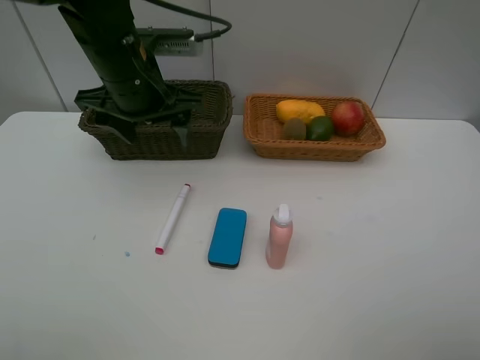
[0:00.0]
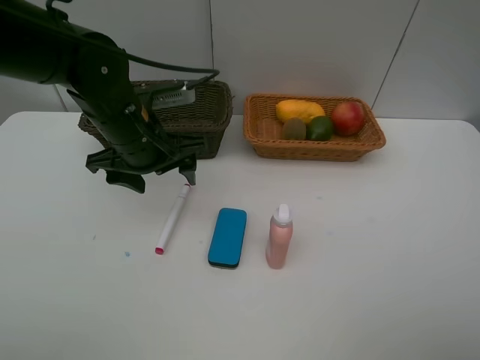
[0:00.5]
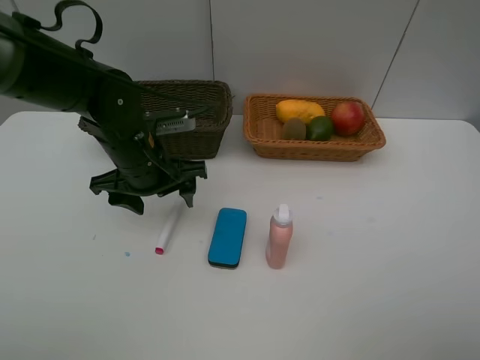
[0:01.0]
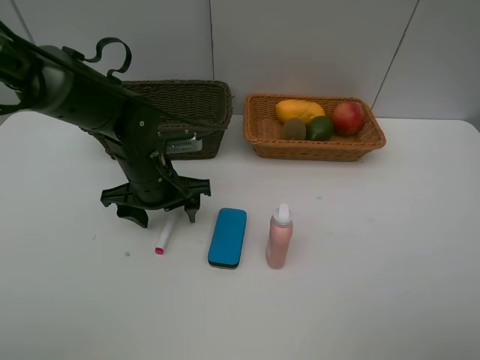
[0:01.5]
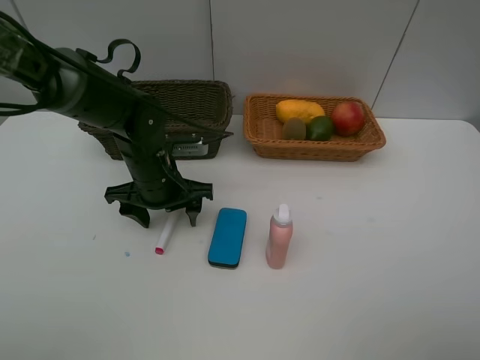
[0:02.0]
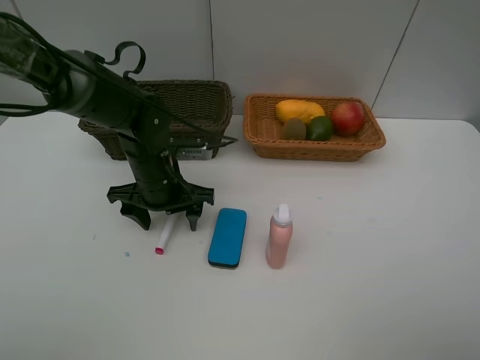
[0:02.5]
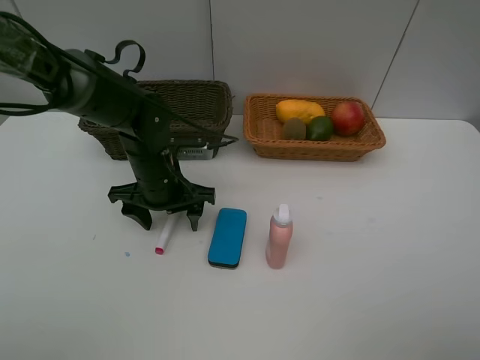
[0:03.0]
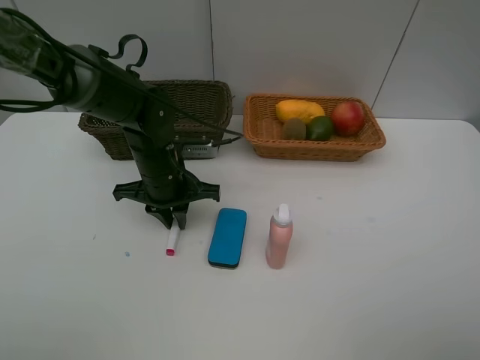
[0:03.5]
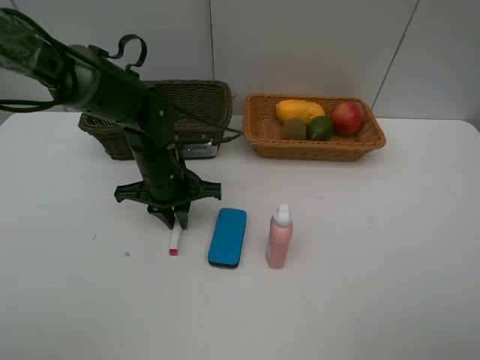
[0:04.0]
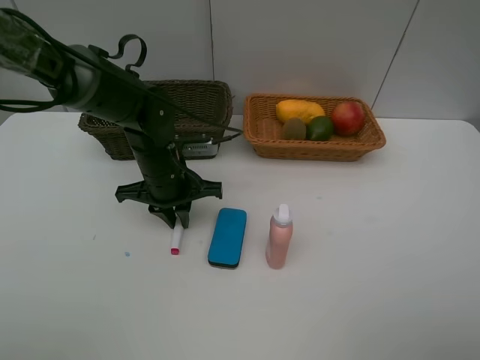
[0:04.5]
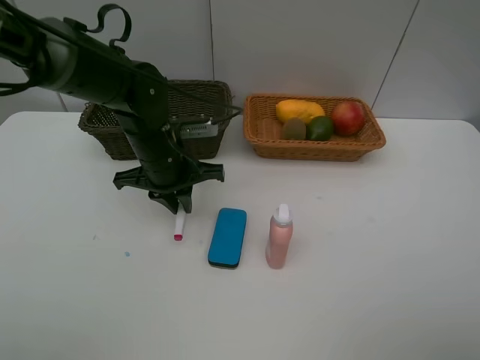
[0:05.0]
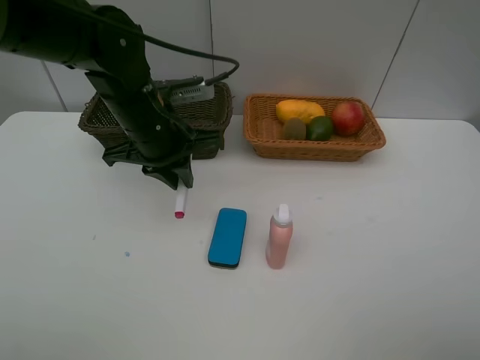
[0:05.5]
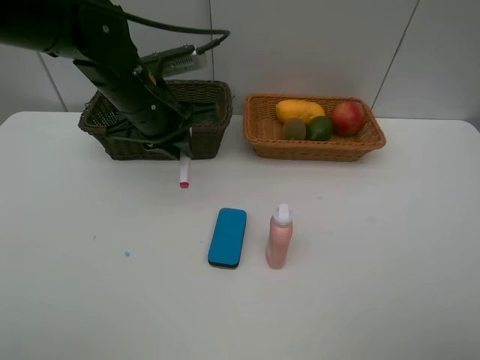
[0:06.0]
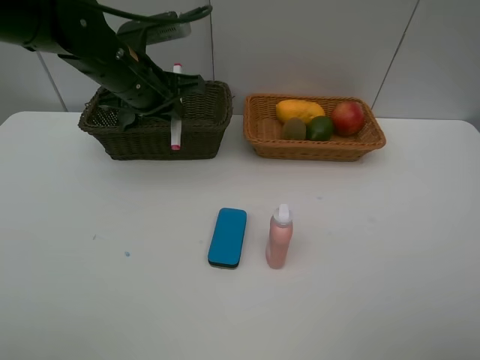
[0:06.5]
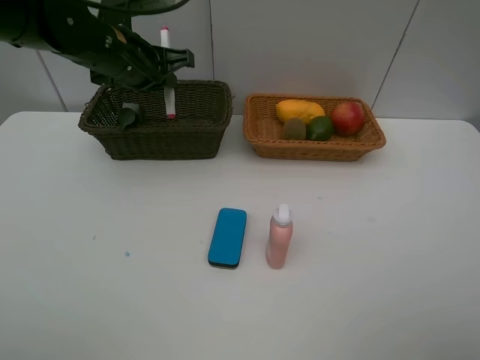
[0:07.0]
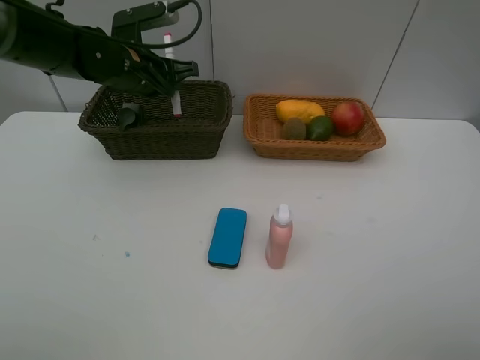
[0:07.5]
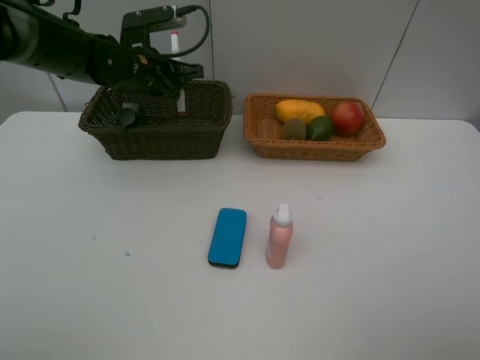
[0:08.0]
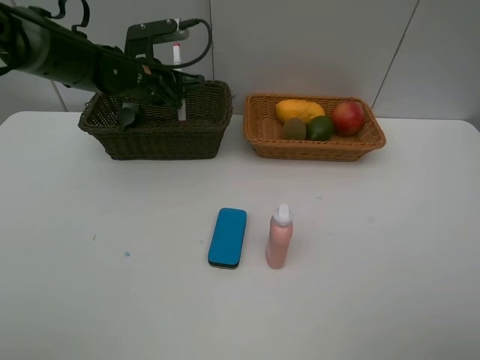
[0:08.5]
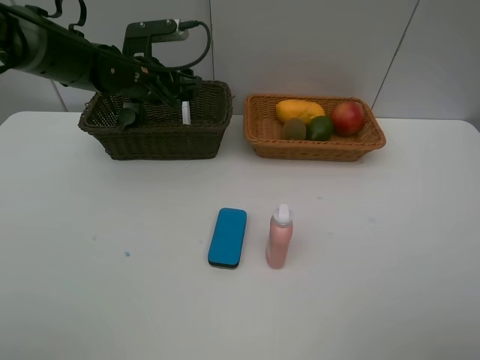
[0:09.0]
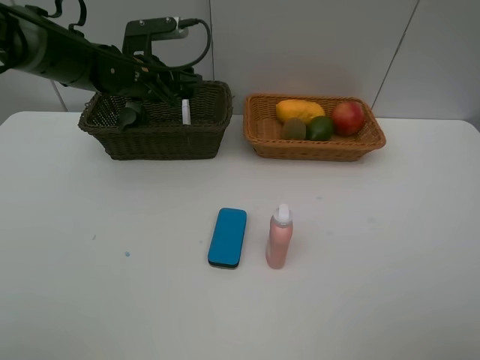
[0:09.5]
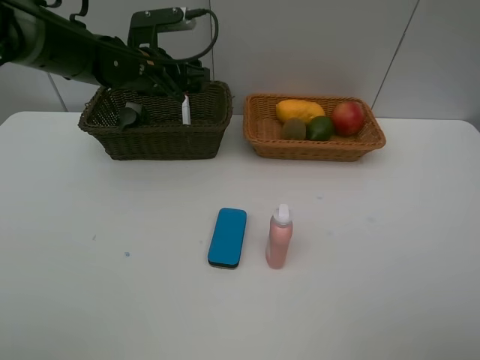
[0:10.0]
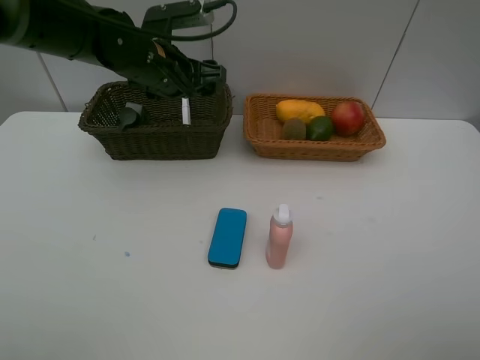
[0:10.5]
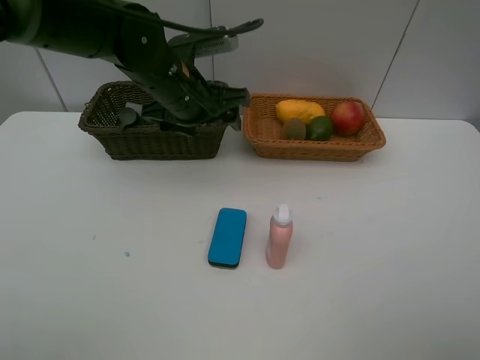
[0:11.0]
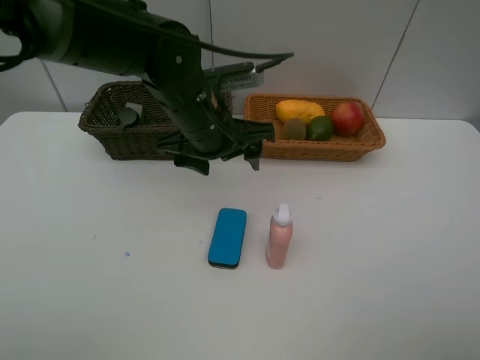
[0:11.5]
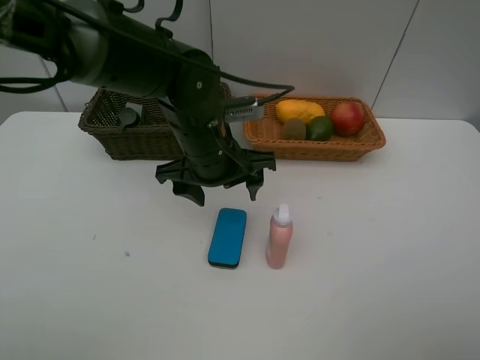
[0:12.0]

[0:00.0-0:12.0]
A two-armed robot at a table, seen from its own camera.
Task of the whole recording: Place multiple objects separately in different baskets.
Step, 0:00.0 to 0:05.0: Pick up the red marker with left gripper.
Step, 0:05.5 to 0:09.5: Place the red marker in the dark basket with left gripper.
0:00.0 to 0:02.0: The left gripper moves downward, approximately 15 cm.
0:02.0 to 0:04.0: The left gripper closes its fingers.
0:04.0 to 0:06.0: The left gripper moves upward, some 10 cm.
0:06.0 to 0:08.0: The left gripper heads forward, covering about 10 cm.
0:08.0 to 0:10.0: The left gripper opens up.
0:10.0 to 0:12.0: The left gripper shifts approximately 15 cm backward and to the right.

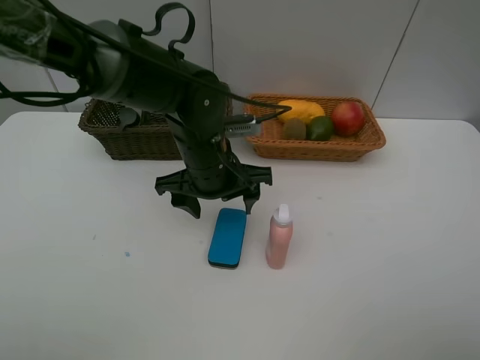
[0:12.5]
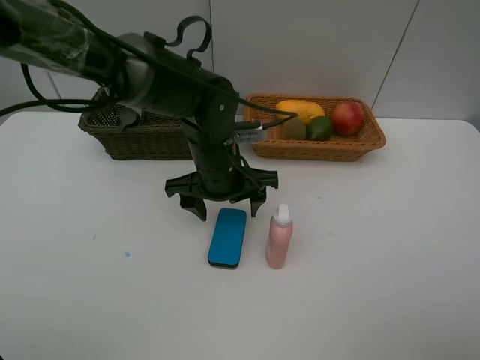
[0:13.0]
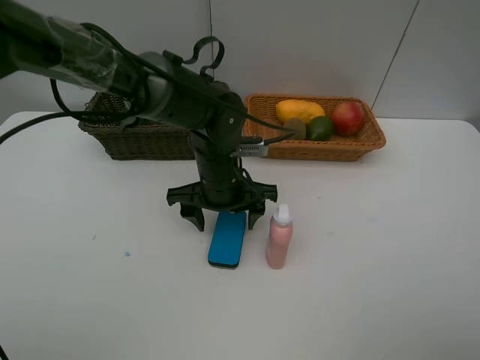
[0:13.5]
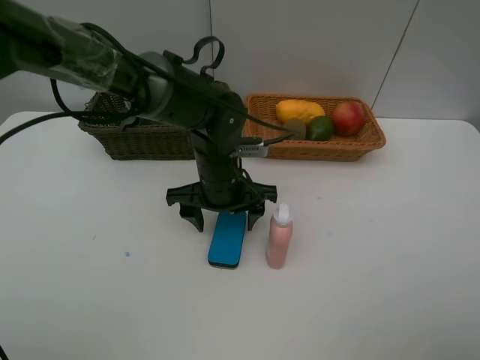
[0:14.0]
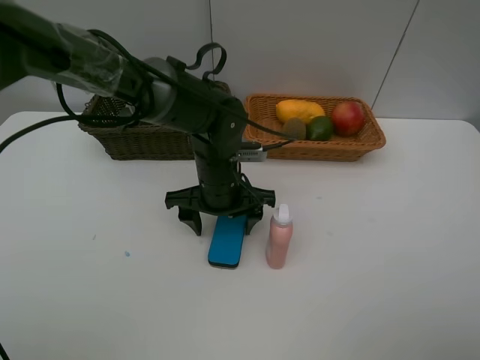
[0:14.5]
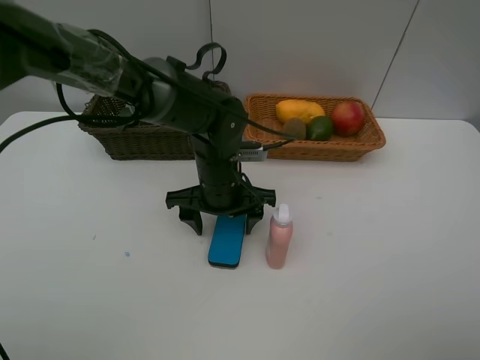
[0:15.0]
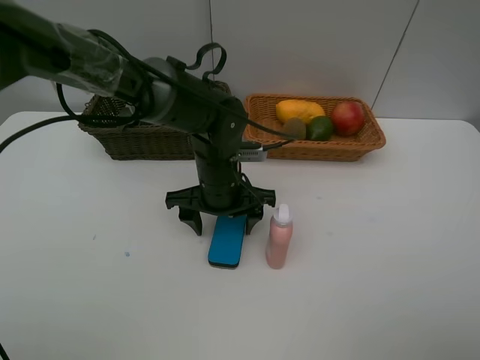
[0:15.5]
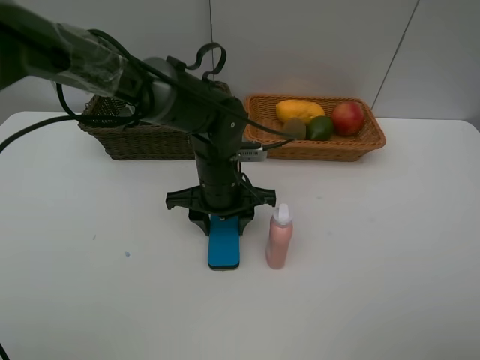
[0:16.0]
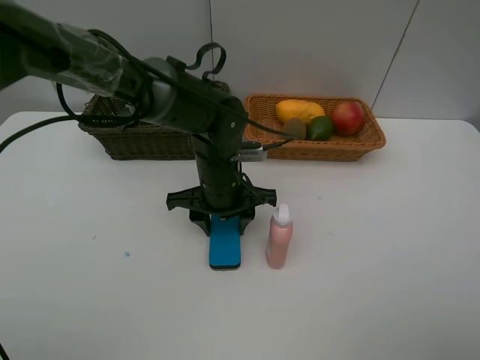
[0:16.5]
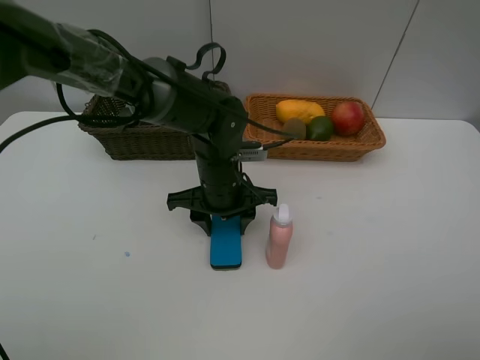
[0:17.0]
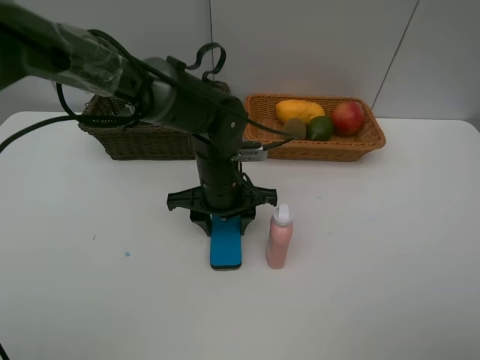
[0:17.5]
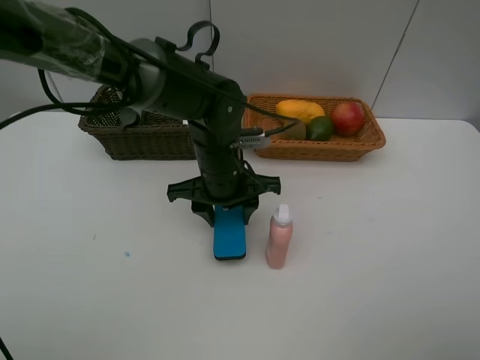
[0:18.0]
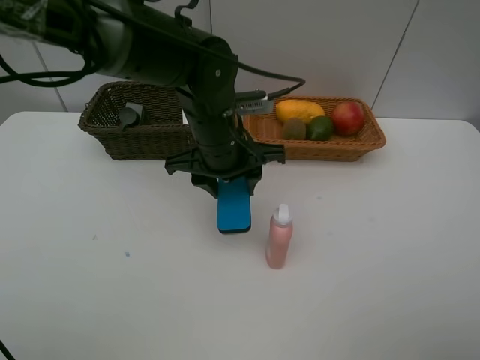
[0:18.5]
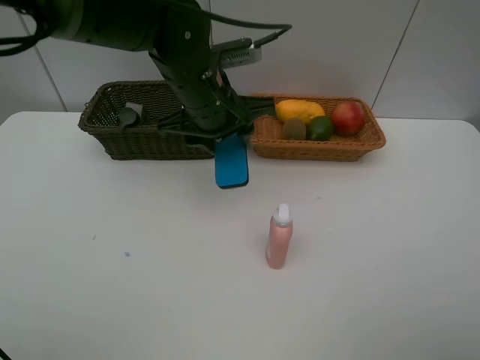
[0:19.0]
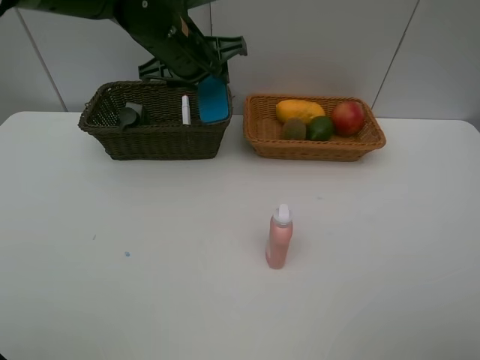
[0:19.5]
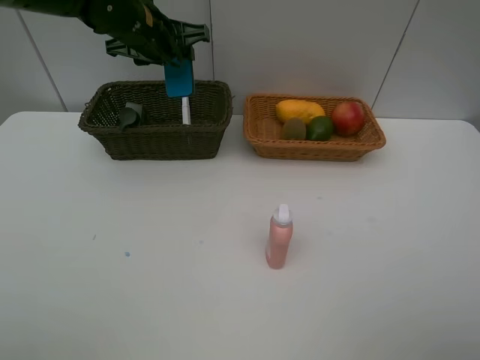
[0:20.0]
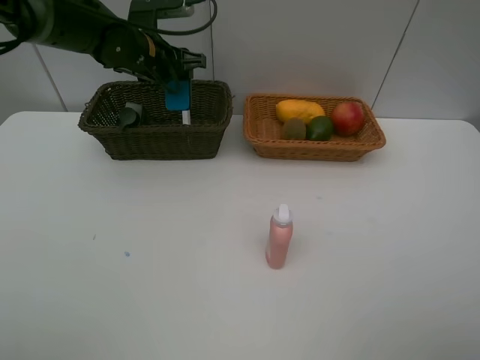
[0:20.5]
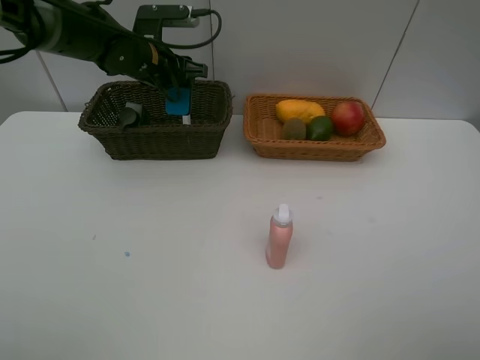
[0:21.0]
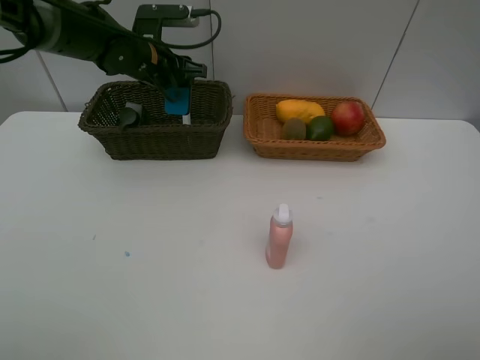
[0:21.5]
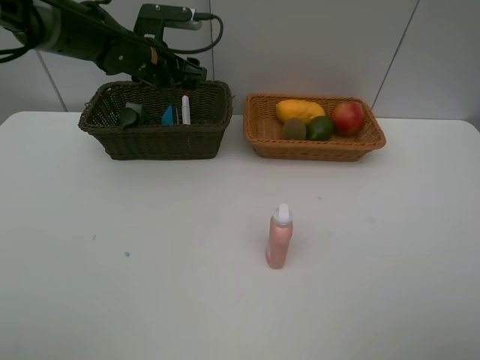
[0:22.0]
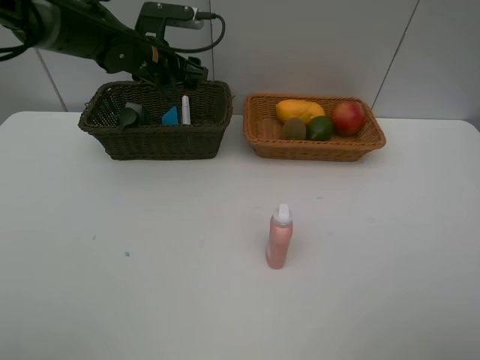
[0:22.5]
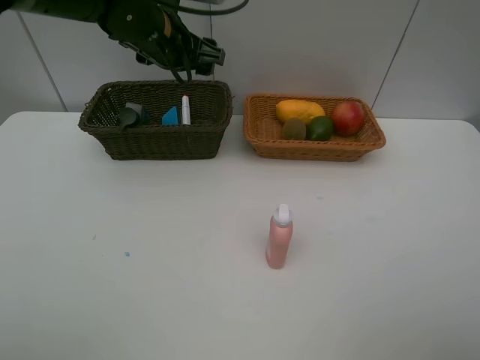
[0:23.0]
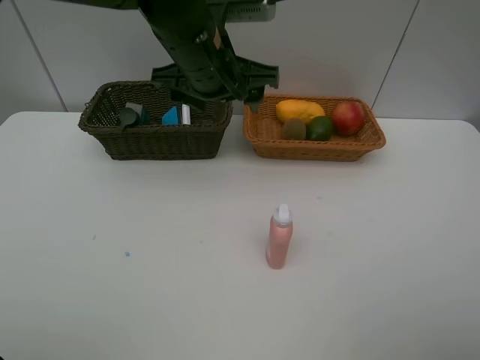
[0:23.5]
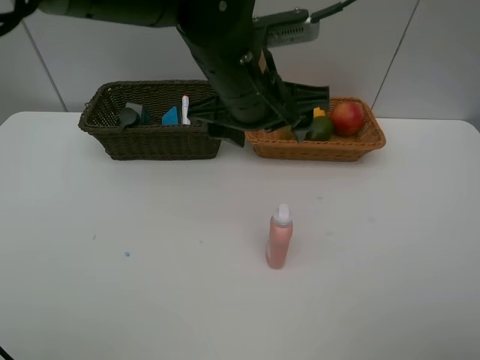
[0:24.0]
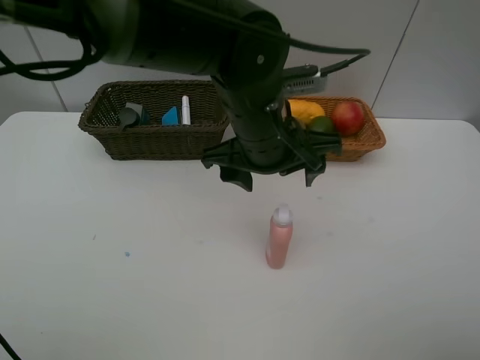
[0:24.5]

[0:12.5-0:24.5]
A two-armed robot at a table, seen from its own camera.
Task of the whole recording: Place multiple objects separately in different baskets.
Step, 0:12.5 to 0:18.0: Pick up blackboard eraser with left gripper.
Step, 0:18.5 to 0:22.0: Place the blackboard eraser in the dark basket with left gripper.
0:12.5 to 0:14.5: The grippers stay close to where they were, moving slightly.
0:14.5 to 0:16.5: The left gripper closes.
0:16.5 to 0:18.5: The left gripper moves upward, roughly 5 cm.
0:18.5 to 0:20.5: The left gripper moves forward and to the left, some 20 cm.
0:20.5 to 0:22.5: The left gripper opens.
0:22.5 to 0:24.5: The left gripper heads backward and to the right, covering roughly 25 cm.

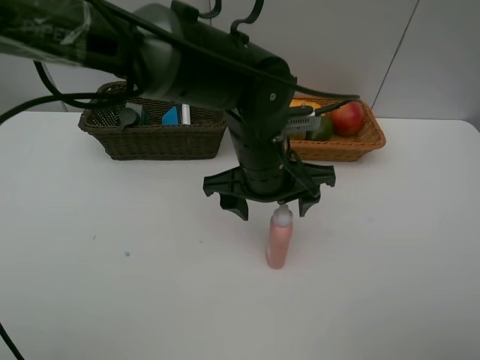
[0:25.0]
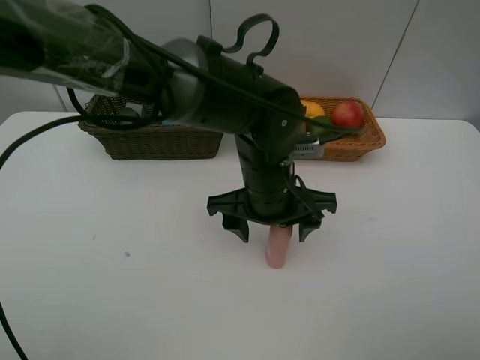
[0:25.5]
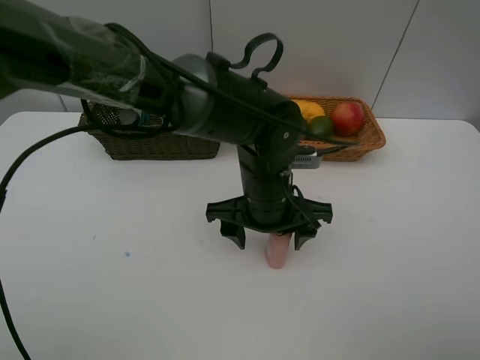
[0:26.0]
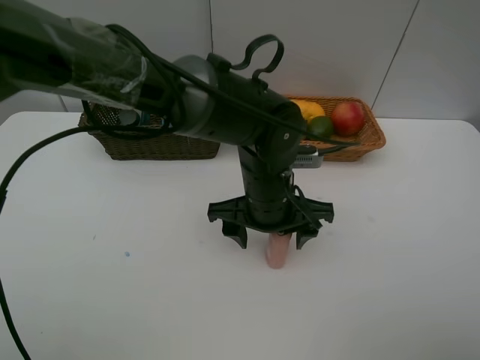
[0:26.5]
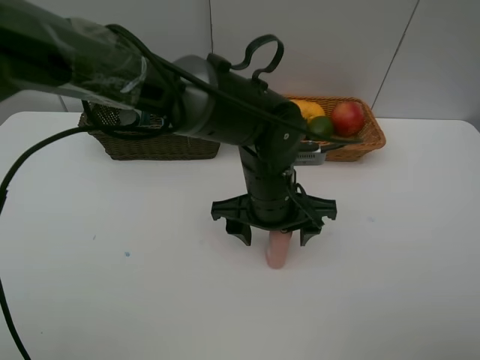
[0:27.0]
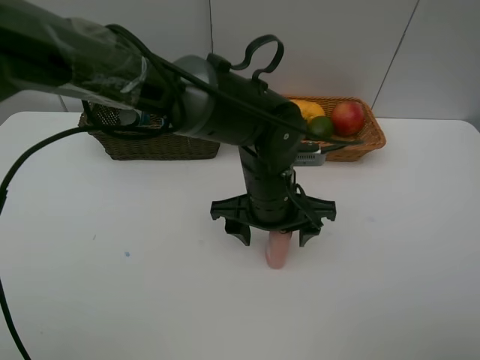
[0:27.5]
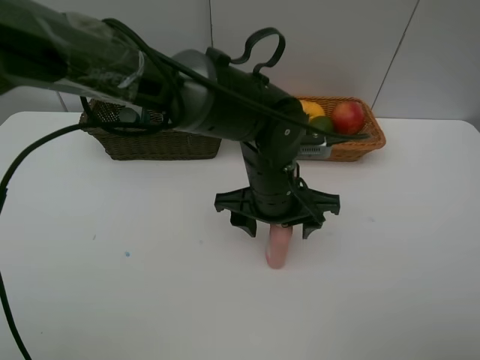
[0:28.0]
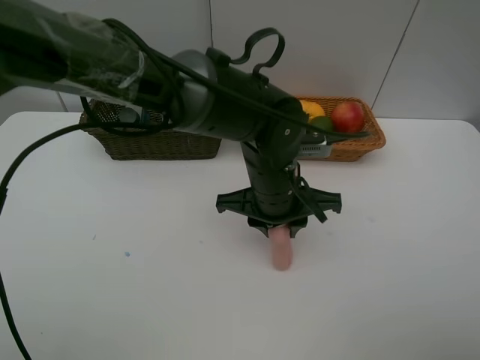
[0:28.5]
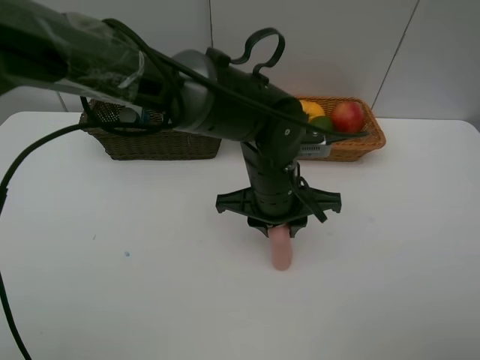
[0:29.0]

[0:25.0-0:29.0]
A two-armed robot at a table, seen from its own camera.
Task of the whole recording: Place multiple objects separately in different baskets.
0:25.0 to 0:27.0: The grippers make only small movements.
0:27.0 to 0:29.0: The left gripper closes.
